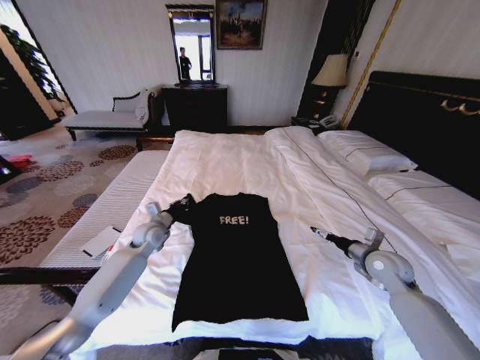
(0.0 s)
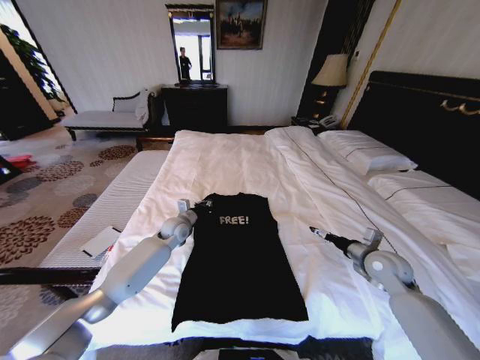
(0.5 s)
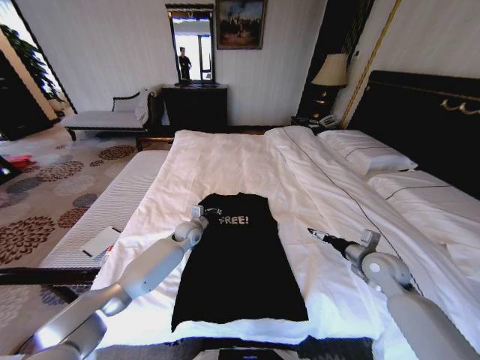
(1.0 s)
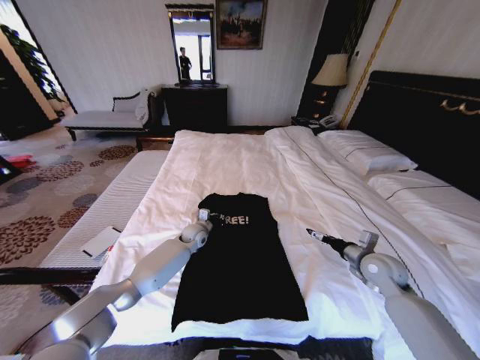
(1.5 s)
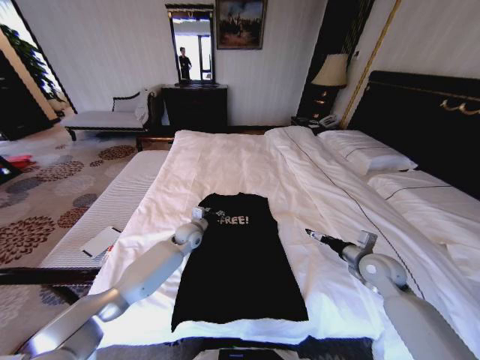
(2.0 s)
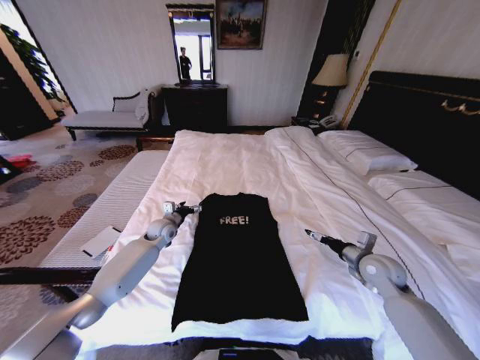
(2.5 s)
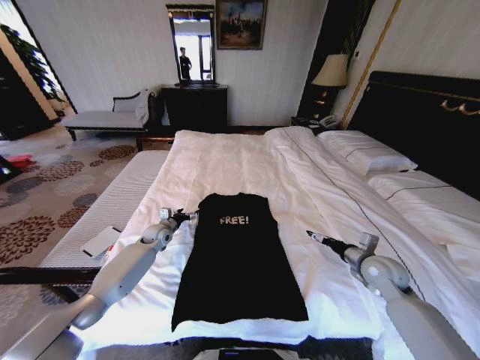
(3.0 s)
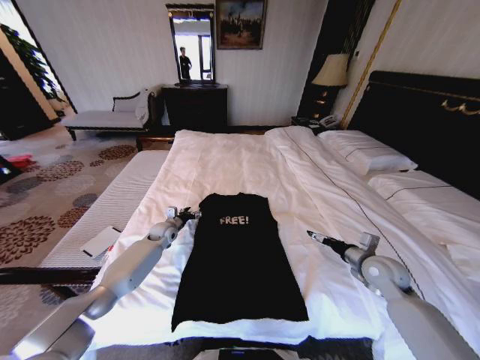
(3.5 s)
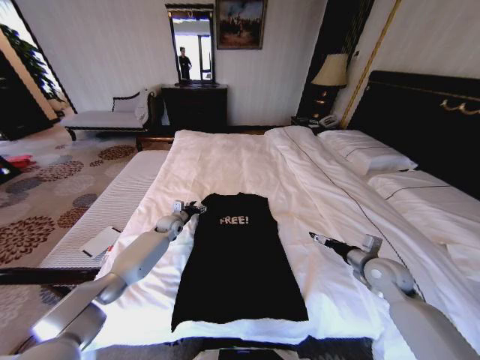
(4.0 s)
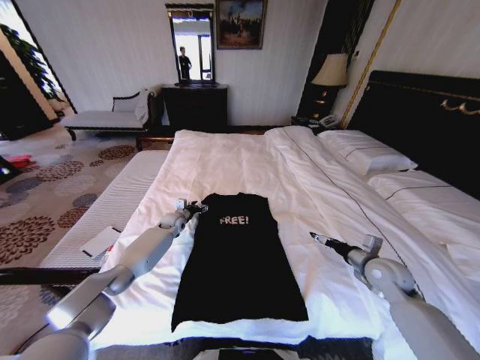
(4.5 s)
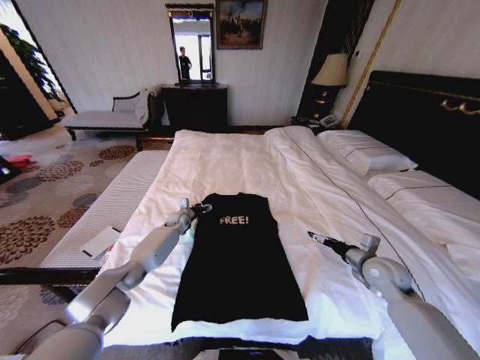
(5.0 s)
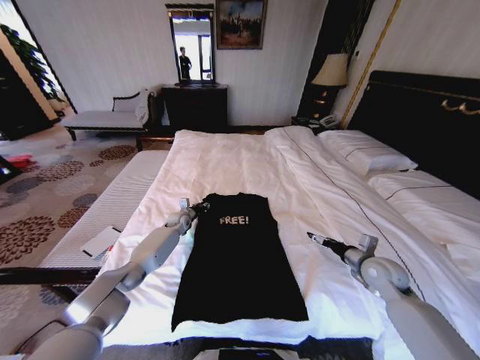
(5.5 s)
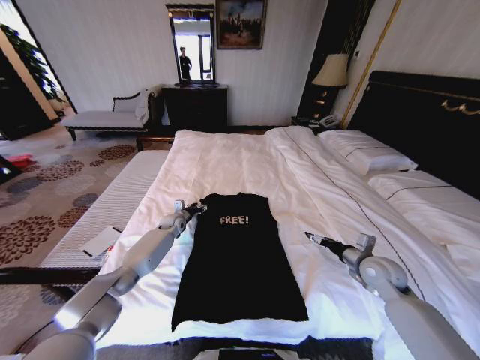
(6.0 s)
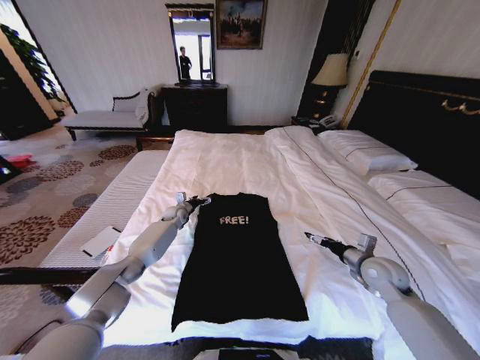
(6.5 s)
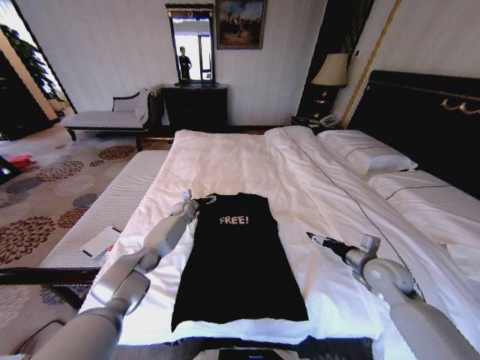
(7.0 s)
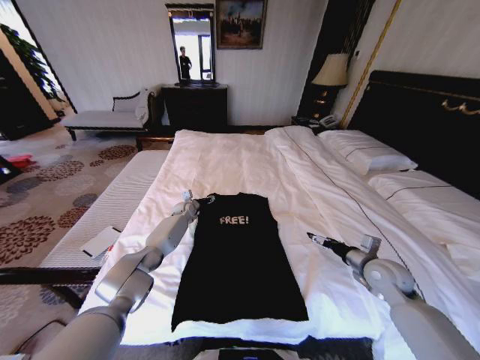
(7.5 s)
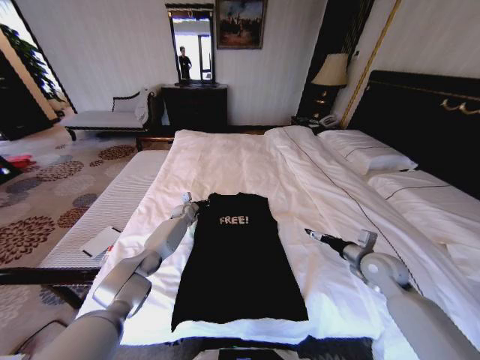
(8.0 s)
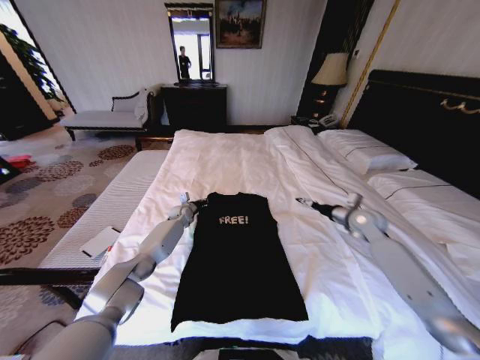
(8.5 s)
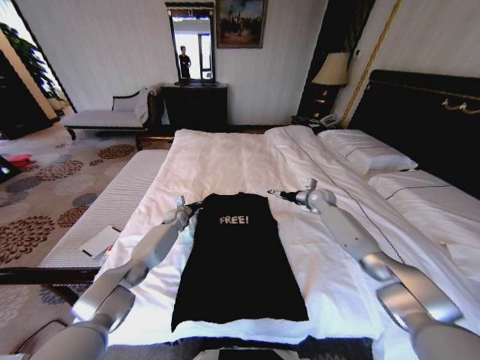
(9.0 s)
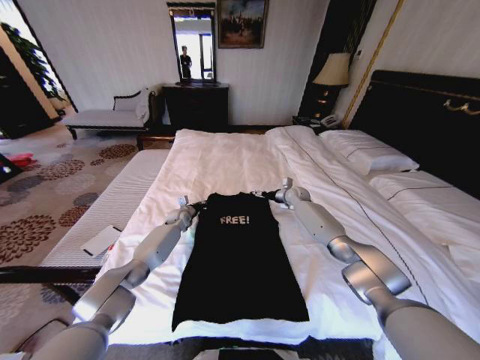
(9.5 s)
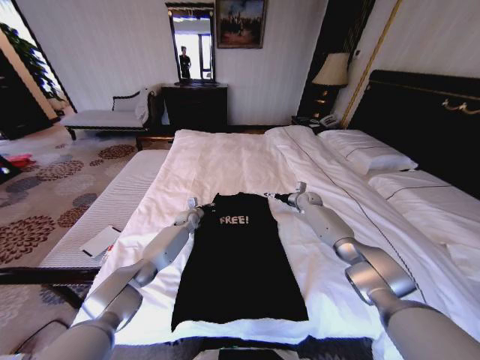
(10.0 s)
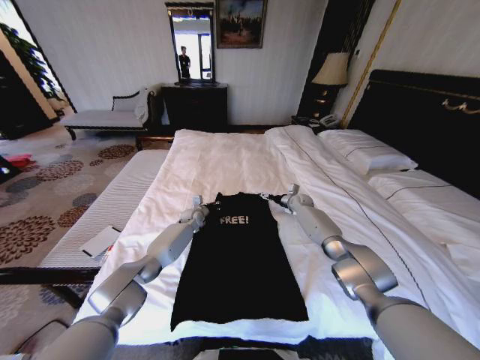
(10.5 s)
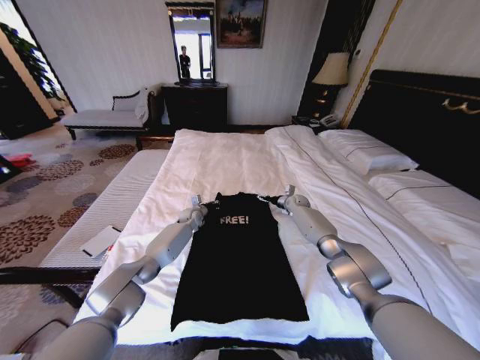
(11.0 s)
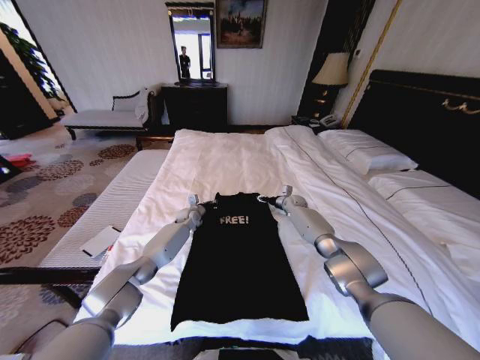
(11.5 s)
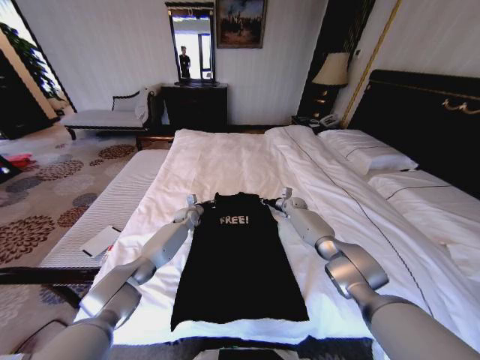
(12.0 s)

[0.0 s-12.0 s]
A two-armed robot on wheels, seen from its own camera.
Task of the whole recording: Fold the clothes on the bed.
0.0 to 2.0 s: The left gripper shifts about 10 cm to the right, and opens its fingers.
2.0 to 4.0 s: The left gripper goes some 10 cm to the left and forward.
4.0 to 6.0 s: The left gripper closes, then reopens.
6.0 to 8.0 s: The left gripper changes place by approximately 5 cm, and closes its fingers.
8.0 to 10.0 s: The right gripper is displaced forward by roughly 30 cm.
10.0 to 12.0 s: The right gripper ends up roughly 5 cm from where it was, and closes its fingers.

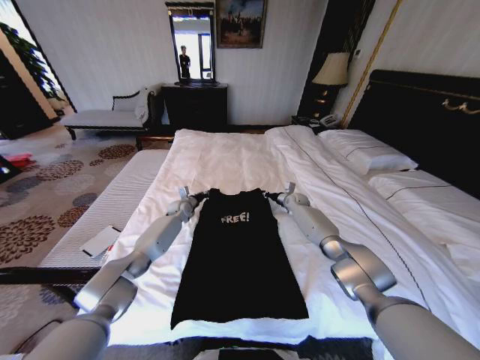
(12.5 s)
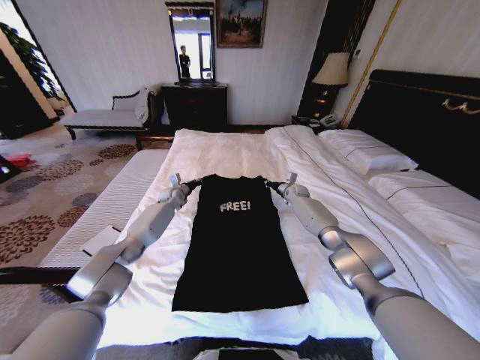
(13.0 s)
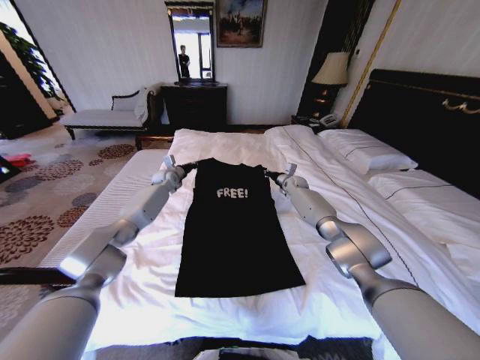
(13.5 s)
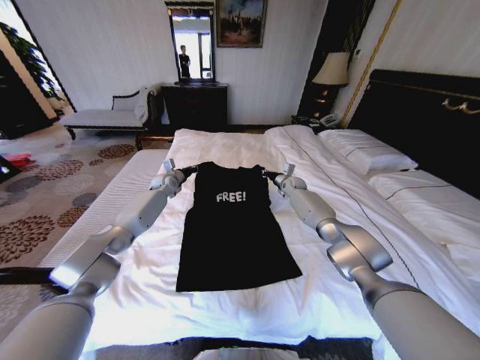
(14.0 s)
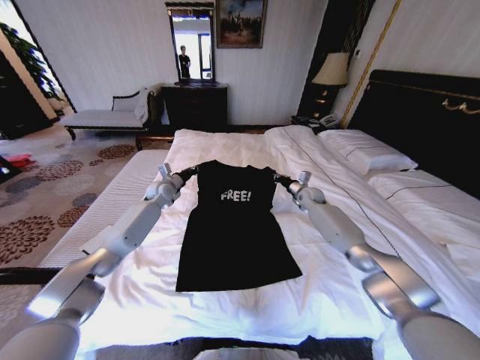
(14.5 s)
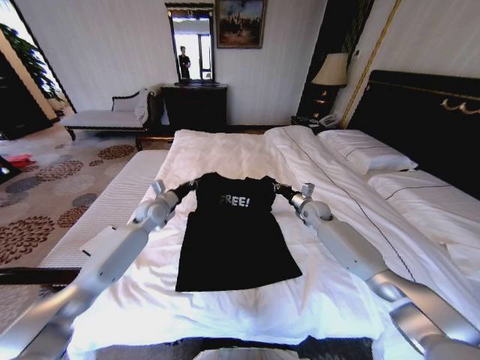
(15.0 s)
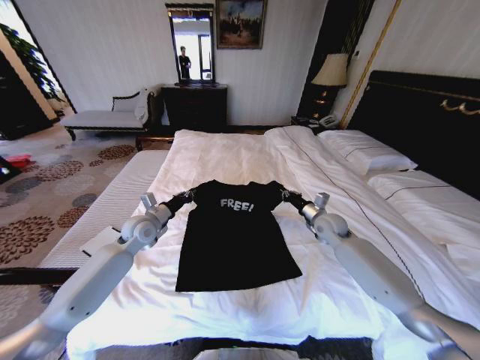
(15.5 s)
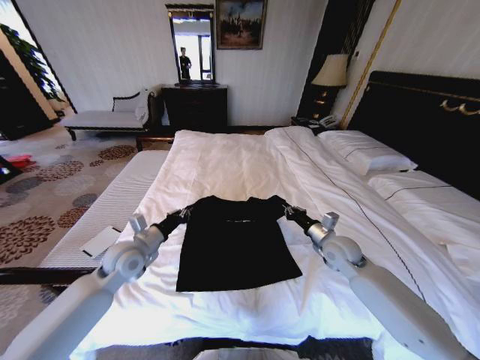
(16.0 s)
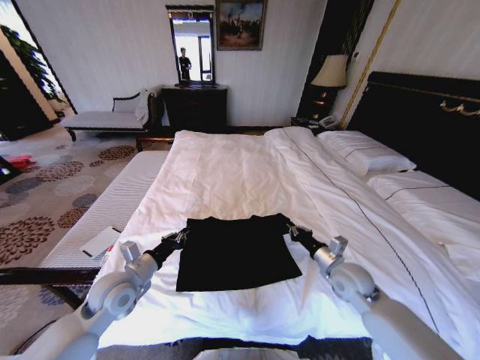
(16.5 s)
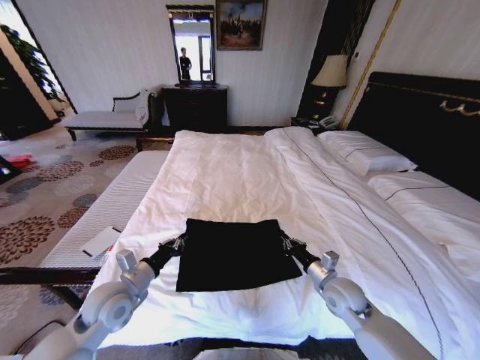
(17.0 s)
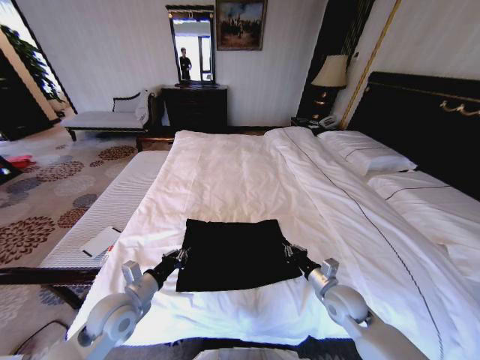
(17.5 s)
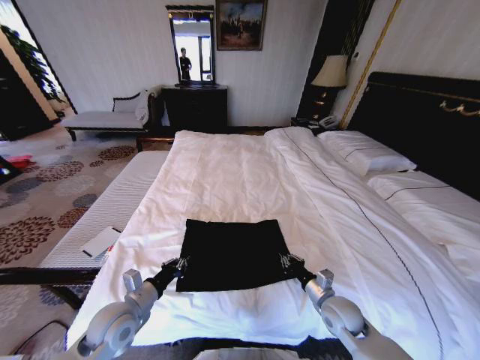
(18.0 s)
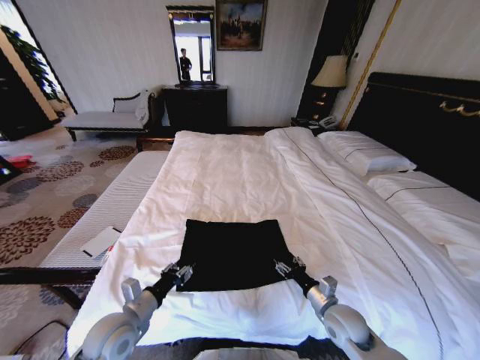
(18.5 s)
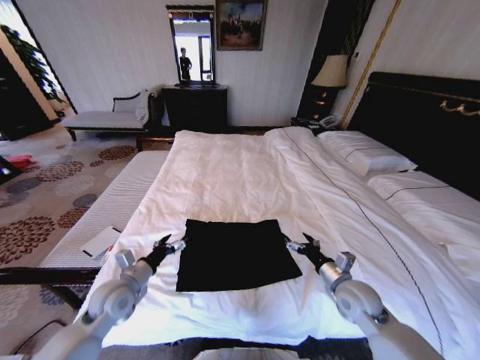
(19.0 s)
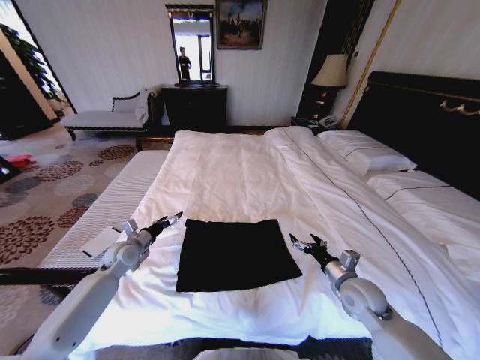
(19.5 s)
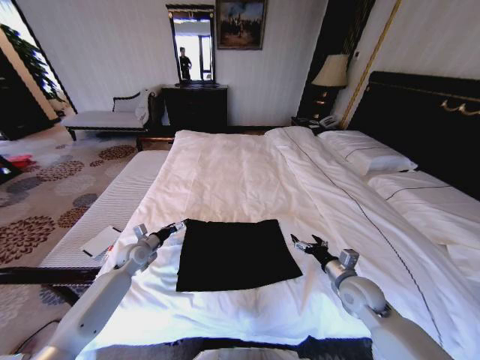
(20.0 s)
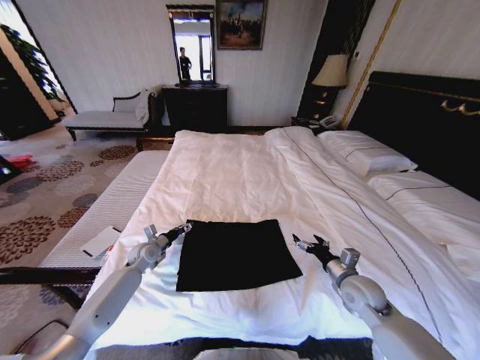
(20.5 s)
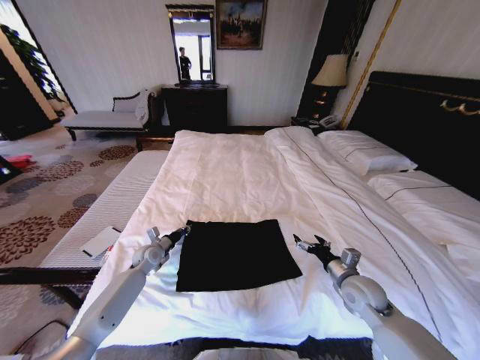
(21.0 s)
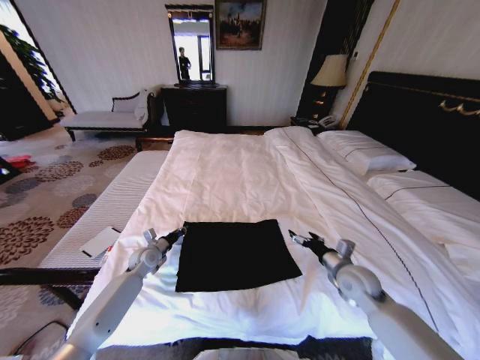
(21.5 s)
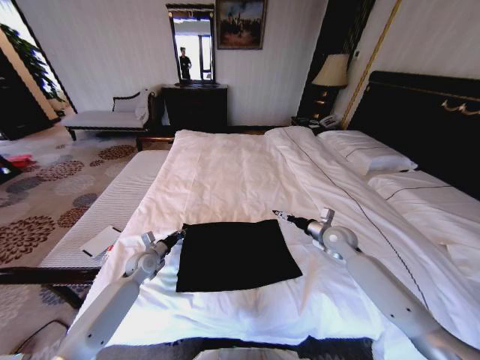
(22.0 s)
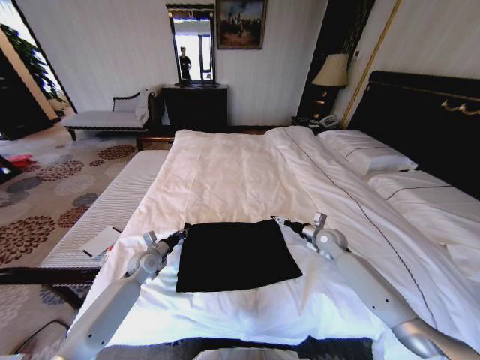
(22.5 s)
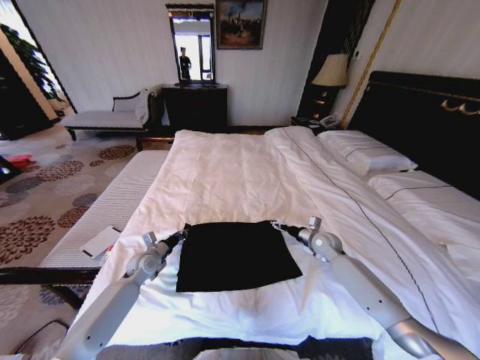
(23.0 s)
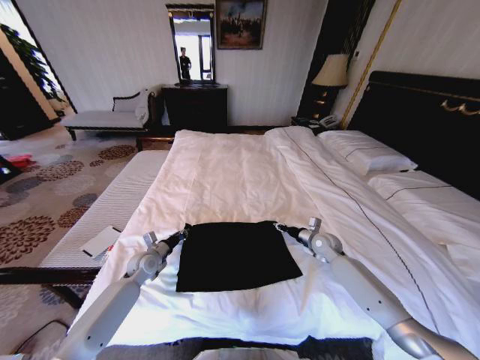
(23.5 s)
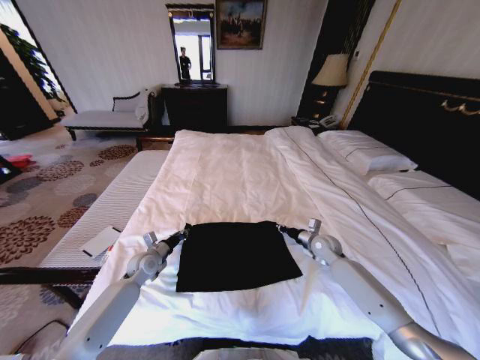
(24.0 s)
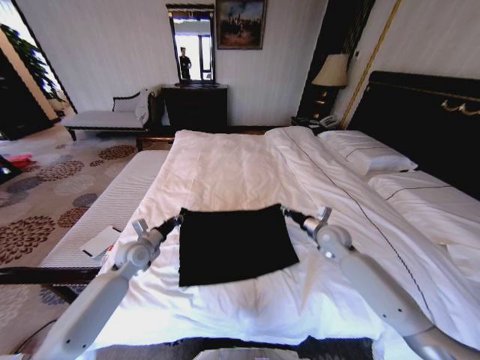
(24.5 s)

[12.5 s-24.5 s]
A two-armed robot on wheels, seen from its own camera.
Task of the whole recording: Fold the clothes on the bed.
12.5 to 14.5 s: The left gripper moves upward, about 10 cm; the right gripper shifts roughly 5 cm upward.
14.5 to 16.5 s: Both grippers move backward, approximately 30 cm.
16.5 to 18.5 s: The right gripper moves backward and downward, about 10 cm, and opens its fingers; the left gripper moves backward, approximately 10 cm, and opens.
18.5 to 20.5 s: The left gripper travels forward by about 25 cm. Meanwhile the right gripper travels forward, to the right and upward by about 10 cm, and opens its fingers.
20.5 to 22.5 s: The left gripper closes up, while the right gripper moves forward, approximately 15 cm.
22.5 to 24.5 s: The right gripper moves some 5 cm, and closes. Meanwhile the left gripper is displaced upward by about 5 cm.

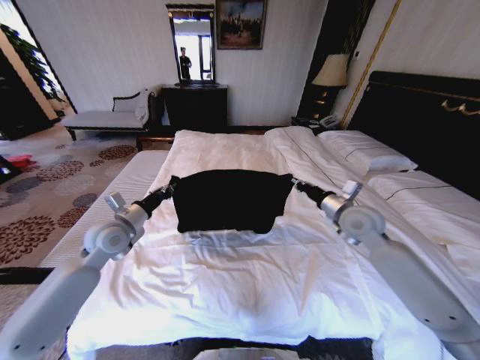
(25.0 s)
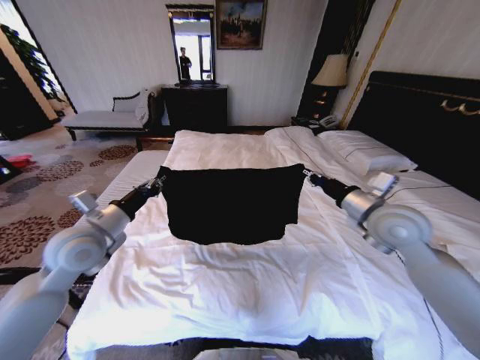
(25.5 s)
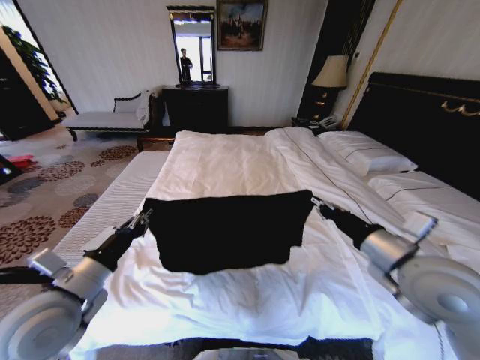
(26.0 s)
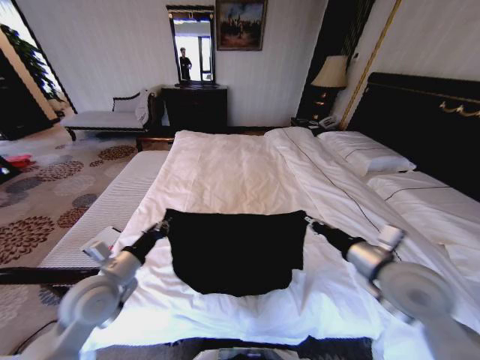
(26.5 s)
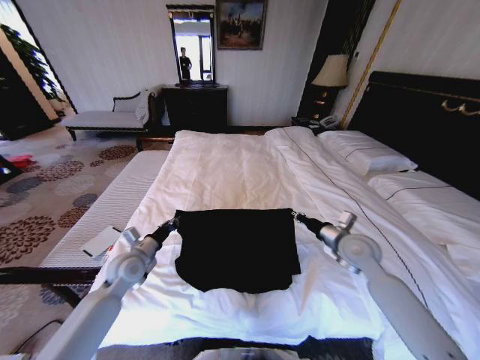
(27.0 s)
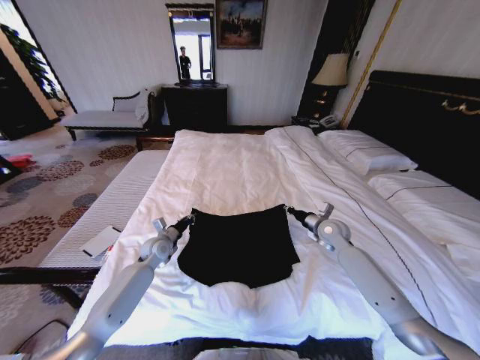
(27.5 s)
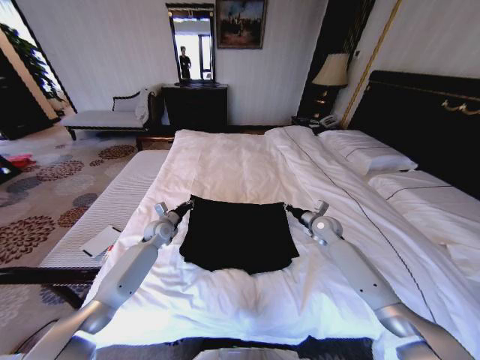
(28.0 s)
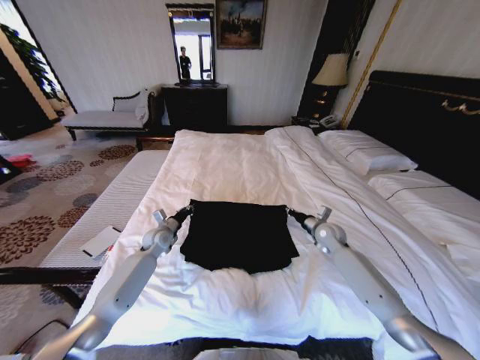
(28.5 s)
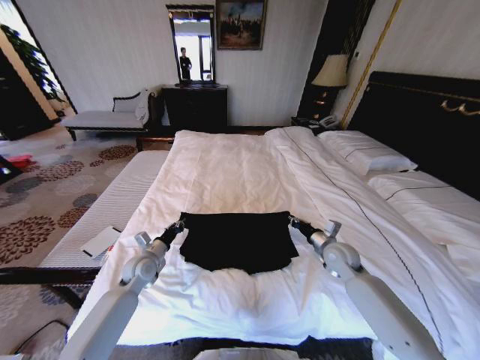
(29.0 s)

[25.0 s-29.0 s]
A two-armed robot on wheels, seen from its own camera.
Task of the whole recording: Fold the clothes on the bed.
25.0 to 27.0 s: The right gripper shifts roughly 5 cm downward, and goes backward and returns, about 20 cm each way, while the left gripper travels downward by some 10 cm, and reaches about 20 cm backward, then returns.
27.0 to 29.0 s: The grippers both shift downward by roughly 5 cm. The right gripper travels forward and back again, approximately 10 cm each way. The left gripper moves roughly 15 cm forward and comes back.
